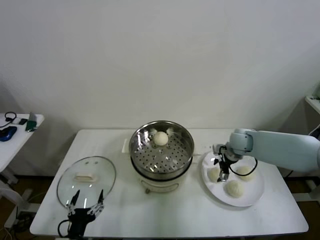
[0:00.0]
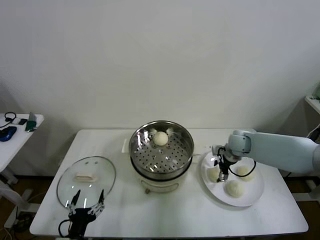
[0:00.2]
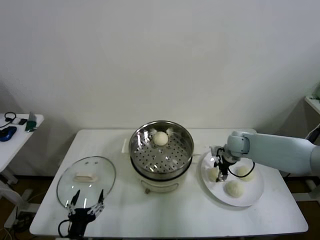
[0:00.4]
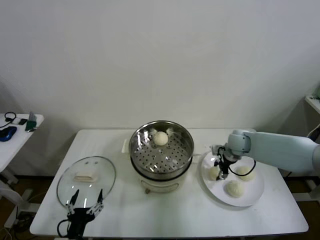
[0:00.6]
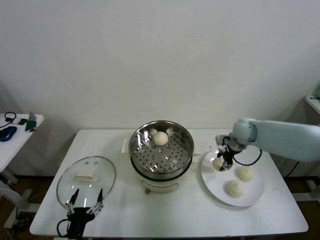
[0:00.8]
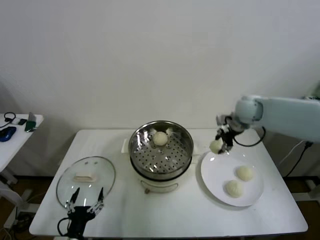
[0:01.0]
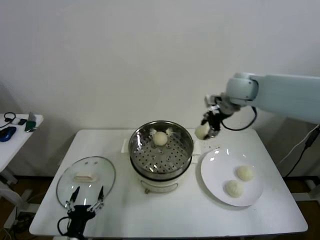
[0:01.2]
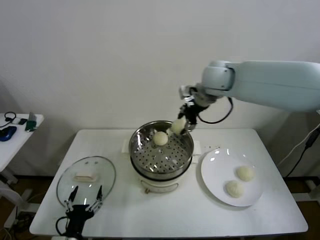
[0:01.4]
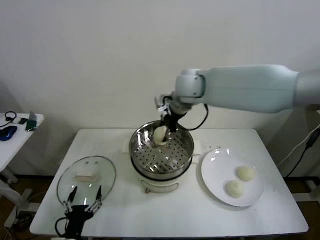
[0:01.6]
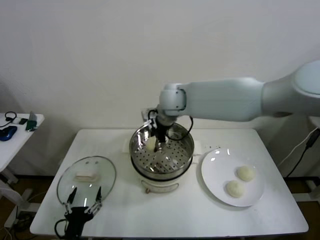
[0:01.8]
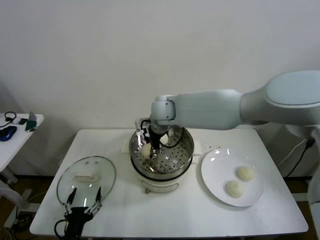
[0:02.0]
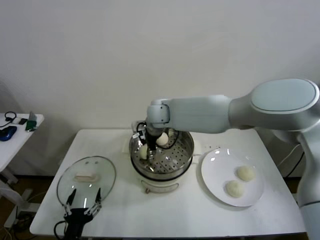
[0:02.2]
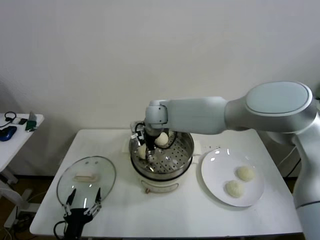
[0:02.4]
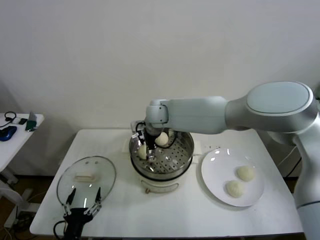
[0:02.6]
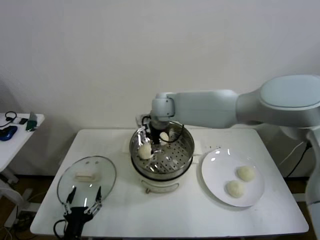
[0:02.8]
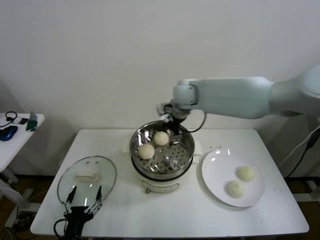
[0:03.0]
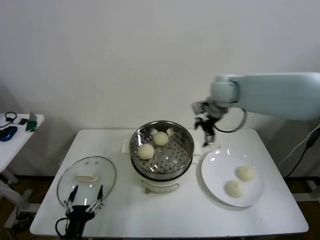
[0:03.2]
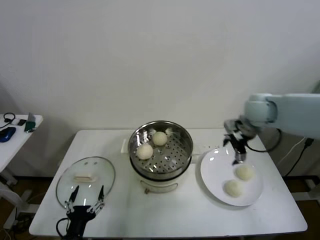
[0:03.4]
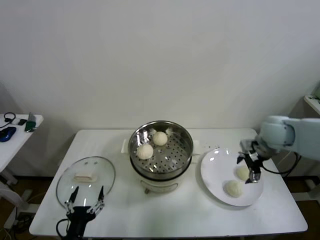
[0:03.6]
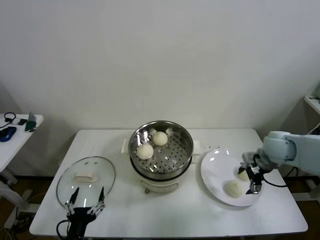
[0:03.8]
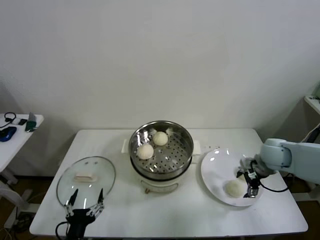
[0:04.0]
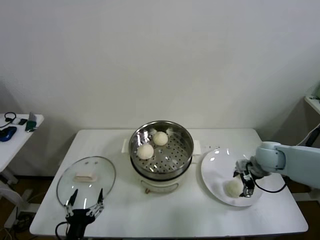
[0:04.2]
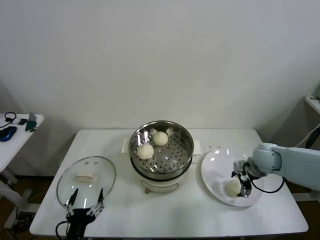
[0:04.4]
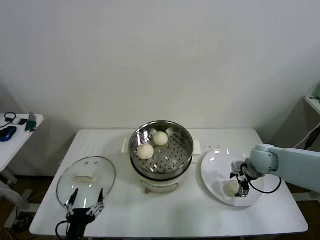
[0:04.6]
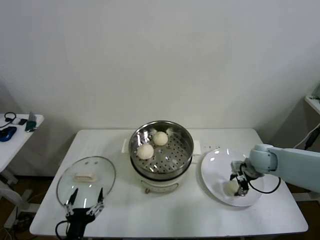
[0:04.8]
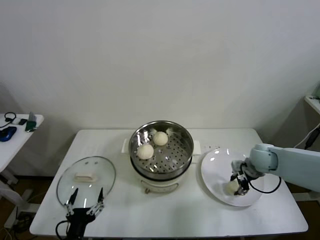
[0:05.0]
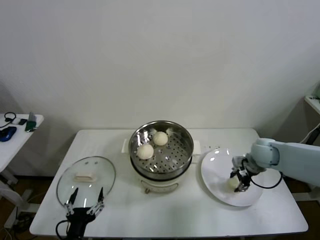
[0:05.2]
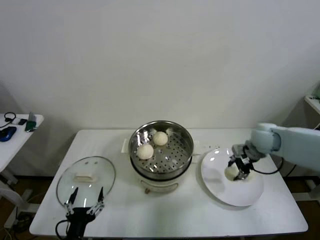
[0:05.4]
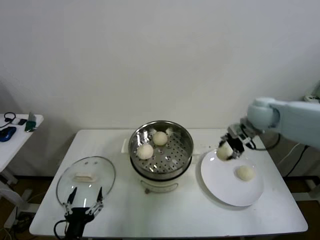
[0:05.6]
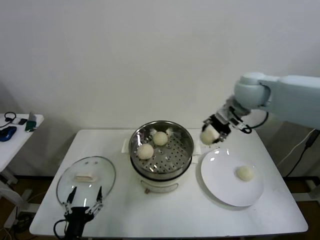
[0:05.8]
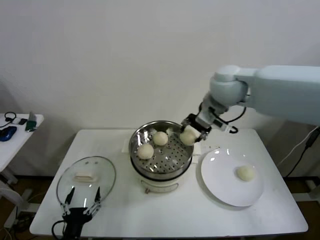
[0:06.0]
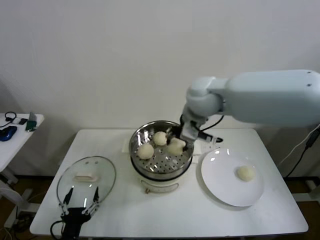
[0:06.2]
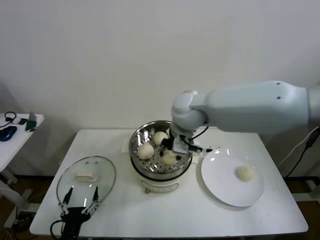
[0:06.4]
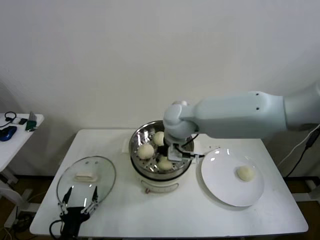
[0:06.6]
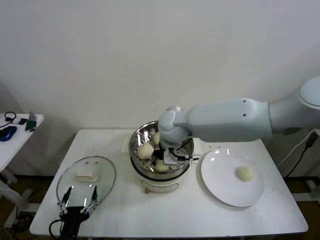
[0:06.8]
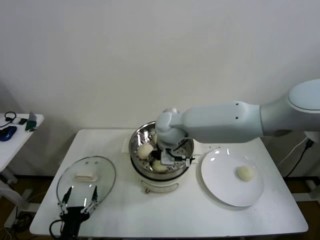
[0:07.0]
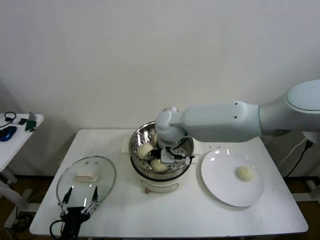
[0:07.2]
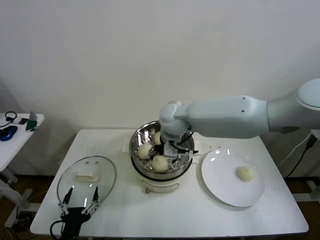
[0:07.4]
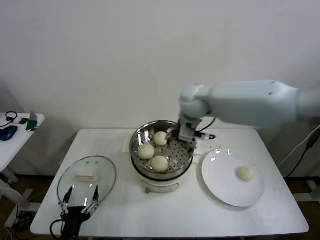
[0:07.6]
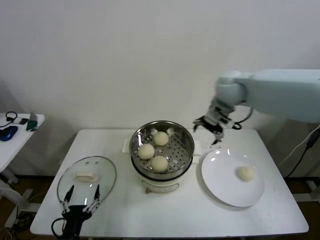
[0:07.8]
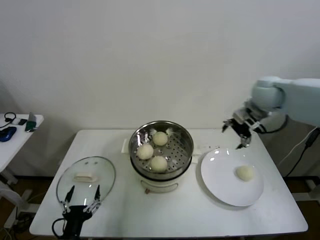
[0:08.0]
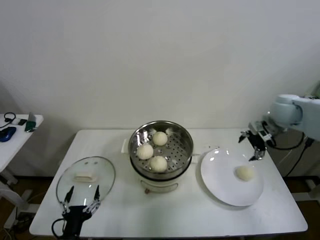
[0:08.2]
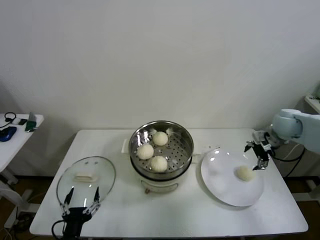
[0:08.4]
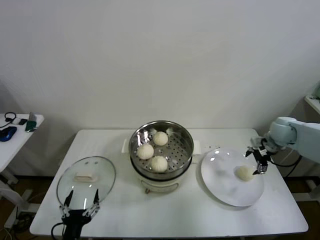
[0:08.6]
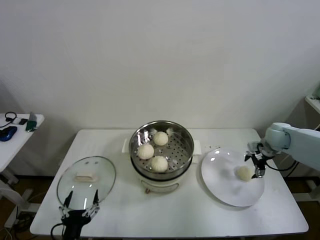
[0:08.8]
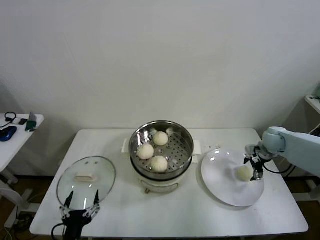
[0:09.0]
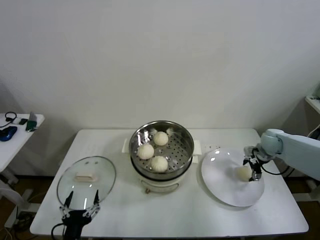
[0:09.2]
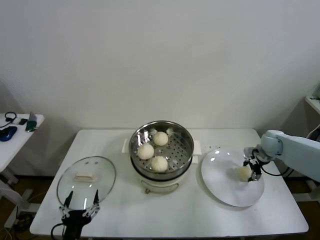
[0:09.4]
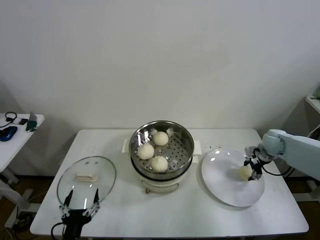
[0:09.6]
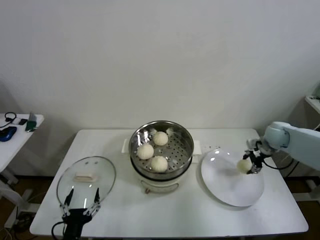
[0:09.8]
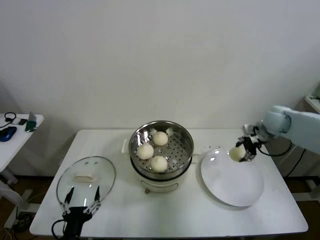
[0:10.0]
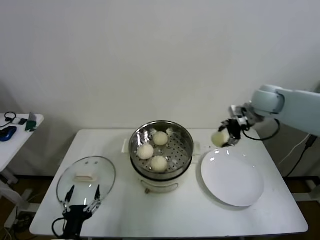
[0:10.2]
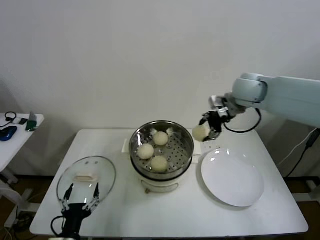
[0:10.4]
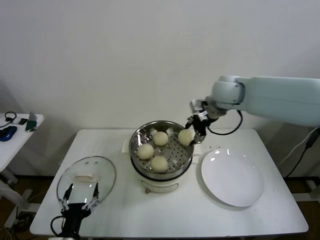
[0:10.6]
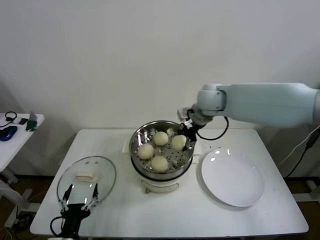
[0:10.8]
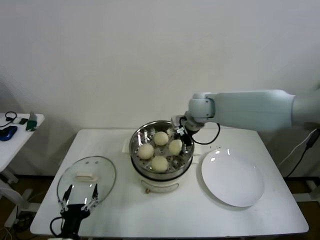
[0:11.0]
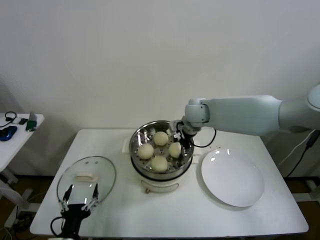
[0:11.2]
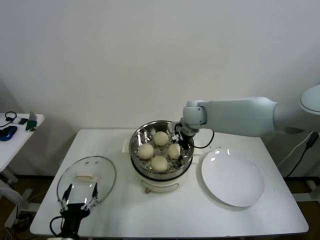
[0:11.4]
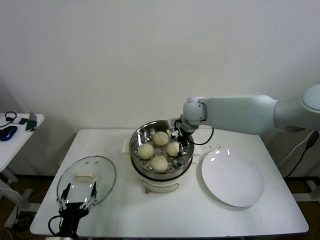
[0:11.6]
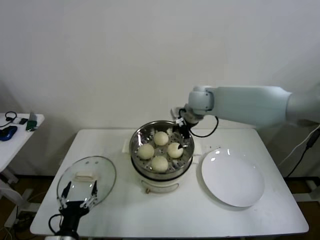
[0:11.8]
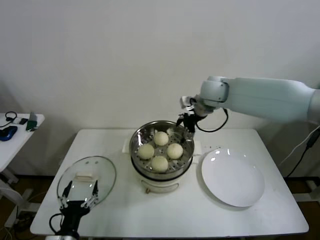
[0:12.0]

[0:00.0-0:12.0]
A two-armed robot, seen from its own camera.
Step, 0:00.6 to 0:02.6: Place the baozi on the steamer with right gripper.
Step, 0:02.8 to 0:04.8: Grasp the baozi in the plate with right gripper.
Step, 0:05.2 to 0:07.2: Place the baozi on the steamer with right gripper.
Step, 0:07.4 to 0:09.2: Grasp the baozi in the plate with right gripper.
Step, 0:09.4 to 0:11.4: Place the baozi on the steamer with right gripper.
0:00.0 to 0:01.6: The right gripper is displaced to the left and upward by some 35 cm, and closes up.
0:01.6 to 0:03.0: The right gripper travels to the right by some 5 cm, and opens its fingers.
0:03.0 to 0:04.4: The right gripper goes some 35 cm to the right, downward and backward.
0:04.4 to 0:06.0: The right gripper travels upward and to the left by roughly 35 cm, and closes.
0:06.0 to 0:07.6: The right gripper travels downward by roughly 5 cm, and opens.
0:07.6 to 0:09.0: The right gripper moves to the right and downward, approximately 35 cm.
0:09.0 to 0:10.4: The right gripper travels upward and to the left by roughly 30 cm, and closes its fingers.
0:10.4 to 0:12.0: The right gripper moves to the left, about 10 cm, and opens its fingers.

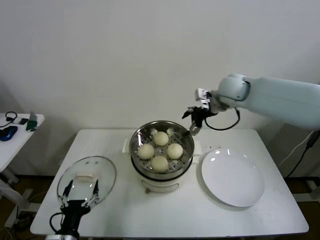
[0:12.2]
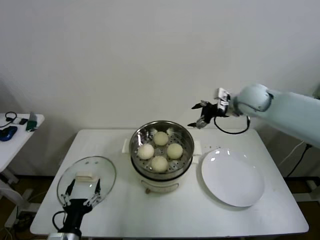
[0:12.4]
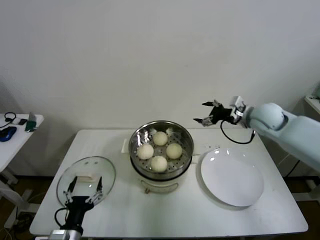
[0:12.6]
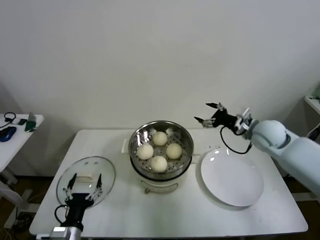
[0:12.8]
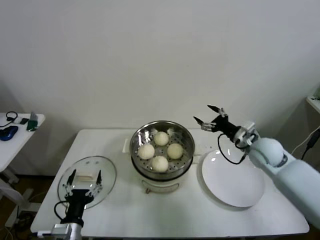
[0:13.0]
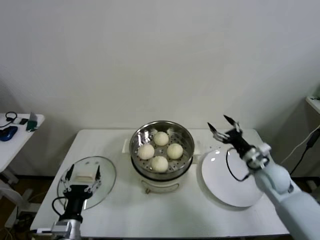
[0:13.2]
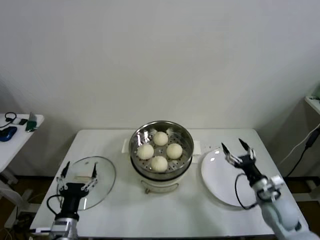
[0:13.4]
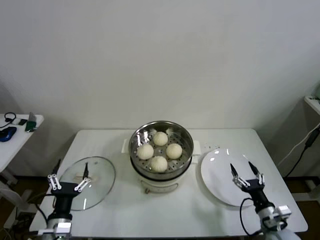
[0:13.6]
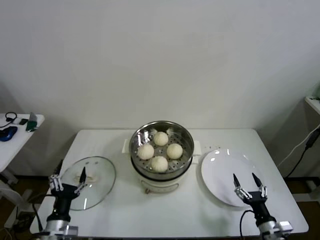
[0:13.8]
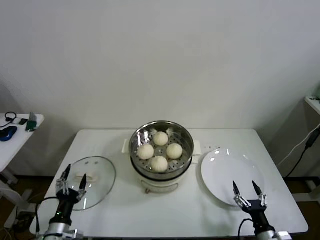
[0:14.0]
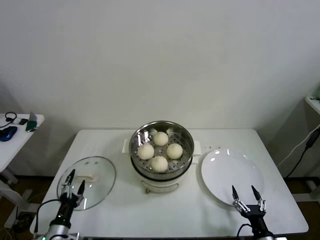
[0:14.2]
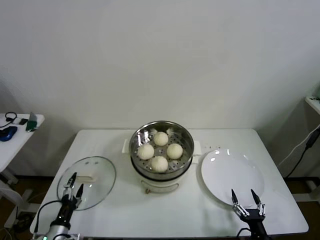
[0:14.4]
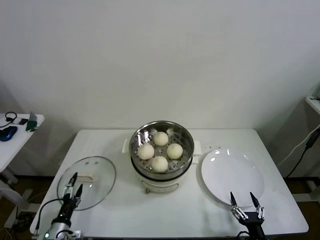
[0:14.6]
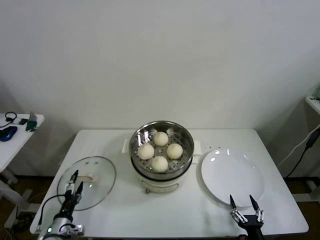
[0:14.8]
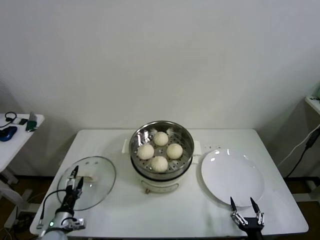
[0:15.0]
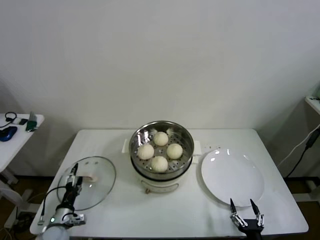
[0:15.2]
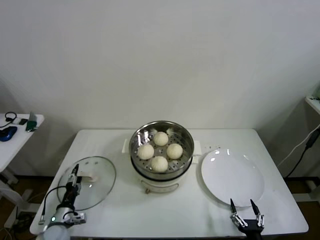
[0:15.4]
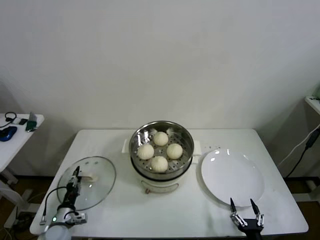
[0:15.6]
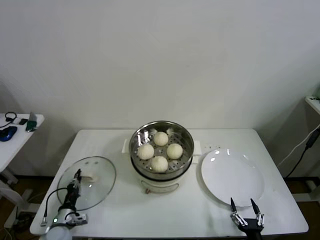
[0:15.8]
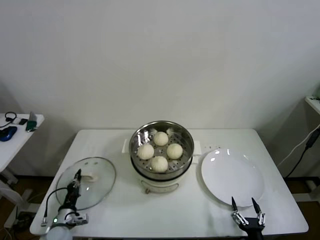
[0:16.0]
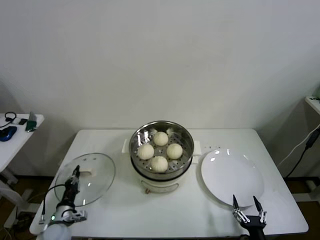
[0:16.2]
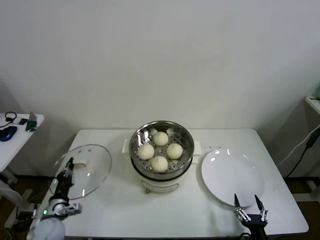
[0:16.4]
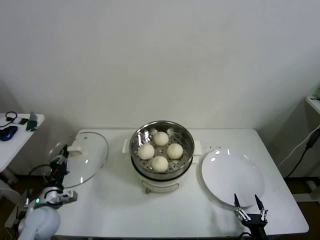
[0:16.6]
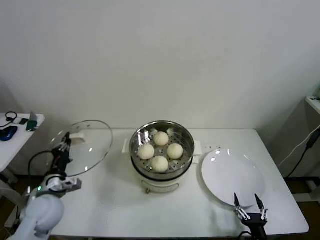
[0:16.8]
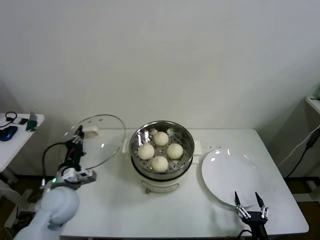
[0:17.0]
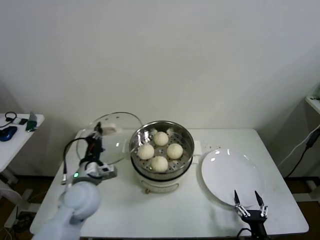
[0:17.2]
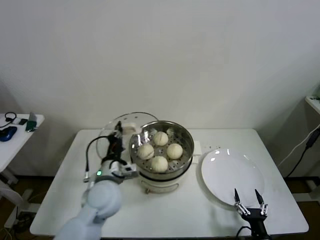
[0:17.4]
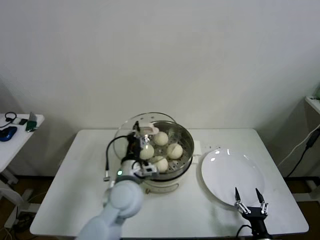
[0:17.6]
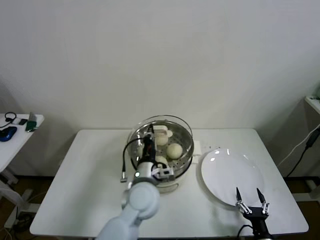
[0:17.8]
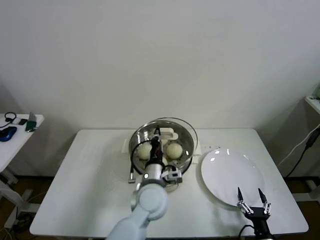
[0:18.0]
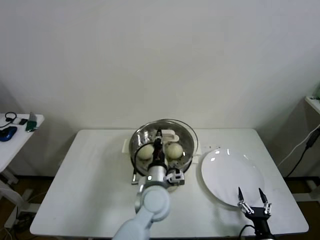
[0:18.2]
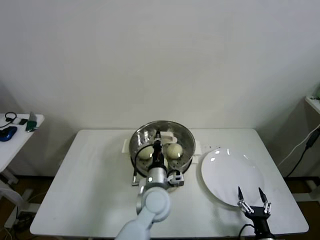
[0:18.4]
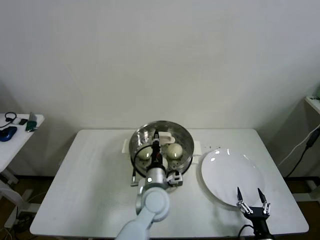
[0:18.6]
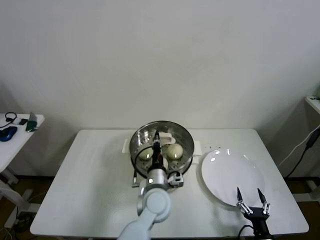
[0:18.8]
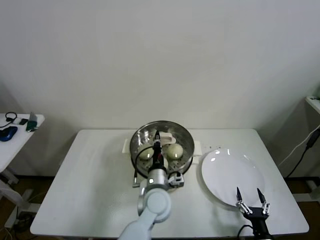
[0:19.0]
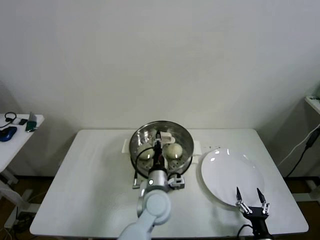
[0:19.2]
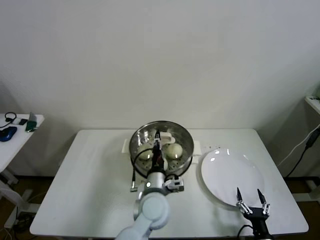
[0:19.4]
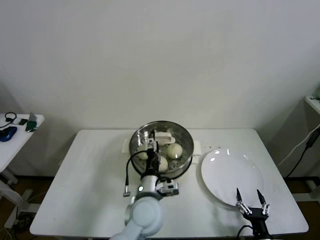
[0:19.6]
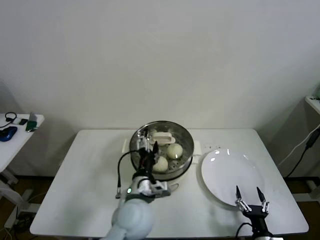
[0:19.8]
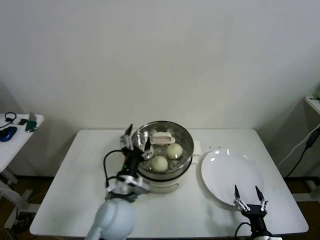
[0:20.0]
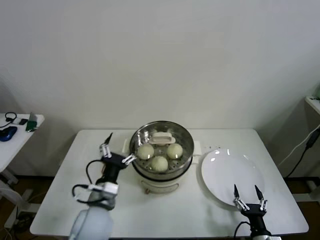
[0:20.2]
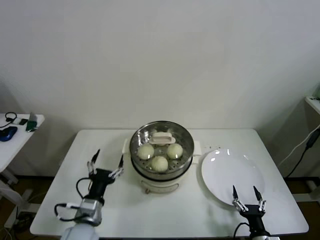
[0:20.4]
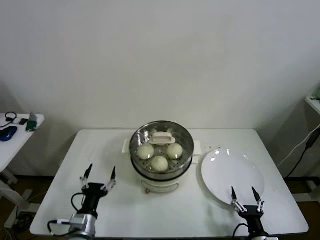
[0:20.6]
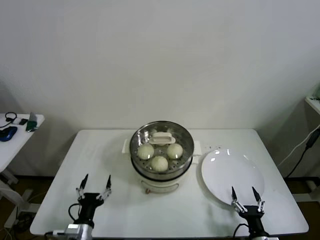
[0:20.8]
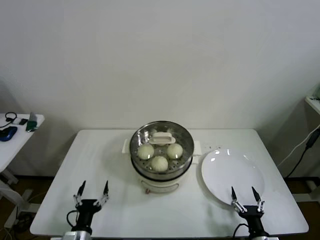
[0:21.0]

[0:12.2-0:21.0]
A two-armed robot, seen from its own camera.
Step, 0:12.2 to 0:15.8: Grasp the pot lid with left gripper.
Step, 0:16.0 to 0:19.0: Place the pot lid on the steamer with left gripper.
0:12.2 to 0:13.6: The left gripper shifts by approximately 5 cm; the right gripper heads downward, backward and to the right, covering some 50 cm.
0:13.6 to 0:15.2: The right gripper is displaced backward, downward and to the left by approximately 15 cm, while the left gripper is displaced downward, to the left and forward by approximately 15 cm.
0:15.2 to 0:16.6: The left gripper is displaced upward by some 10 cm, and closes its fingers.
0:16.6 to 0:18.0: The left gripper moves to the right, about 35 cm.
0:18.0 to 0:19.6: The left gripper opens its fingers.
0:19.6 to 0:21.0: The left gripper heads to the left, downward and backward, covering about 30 cm.
